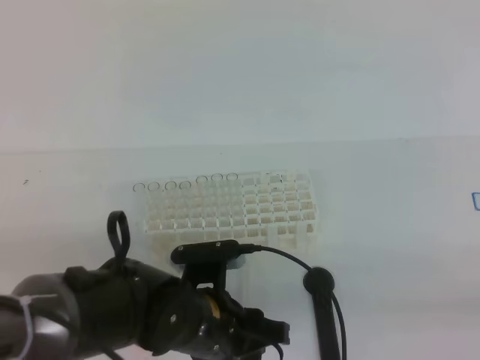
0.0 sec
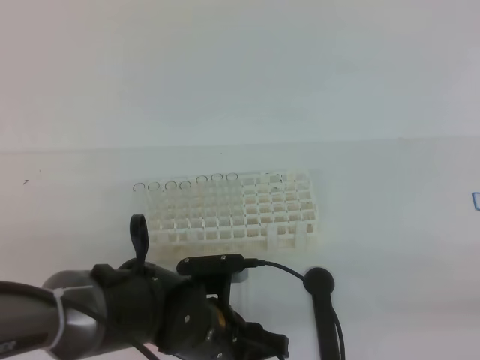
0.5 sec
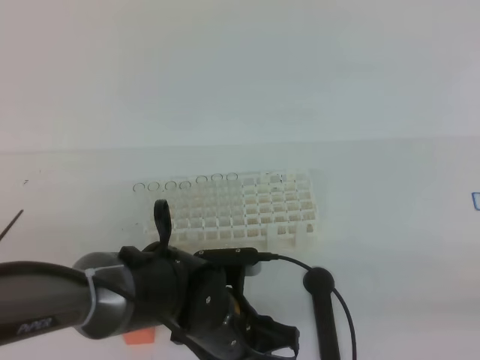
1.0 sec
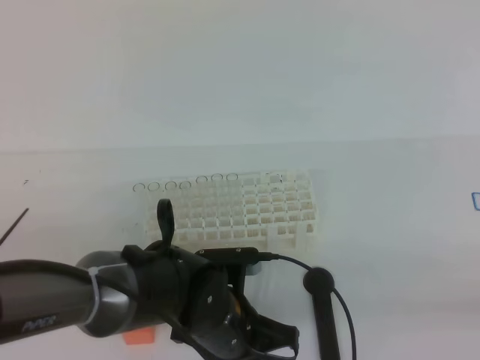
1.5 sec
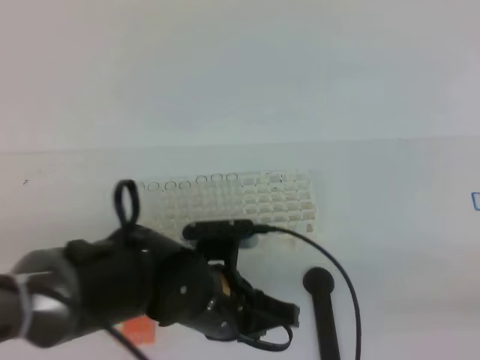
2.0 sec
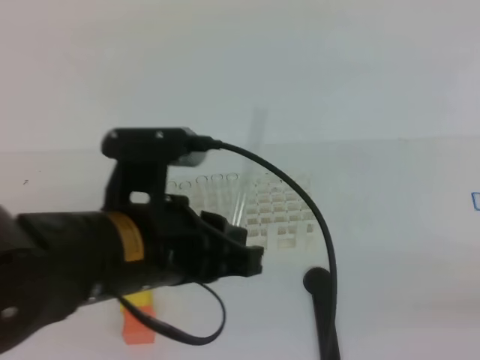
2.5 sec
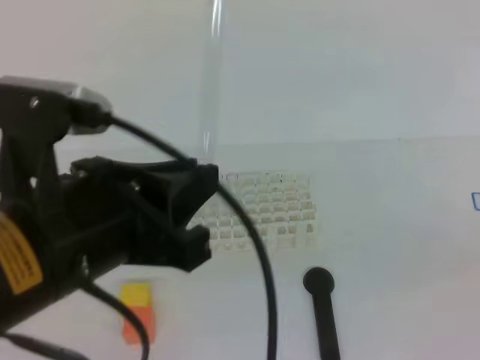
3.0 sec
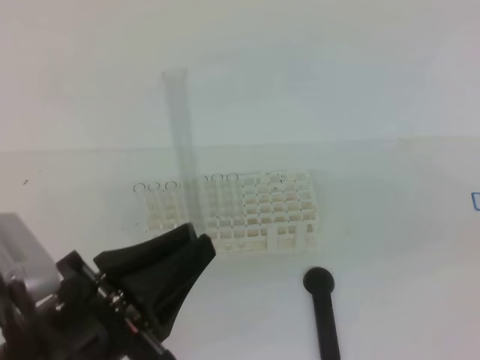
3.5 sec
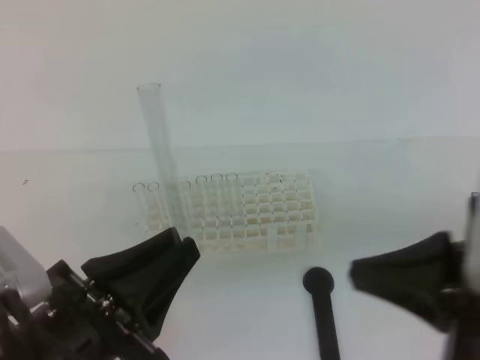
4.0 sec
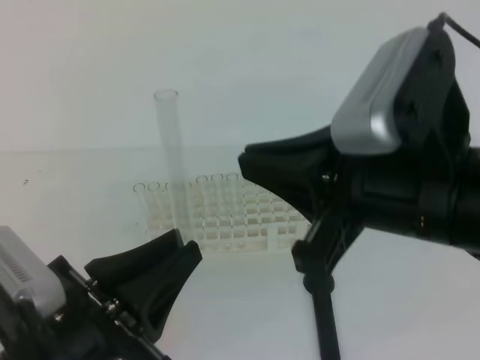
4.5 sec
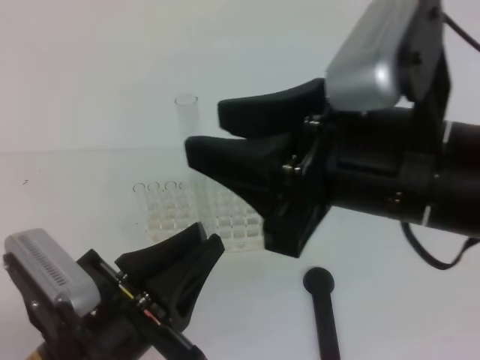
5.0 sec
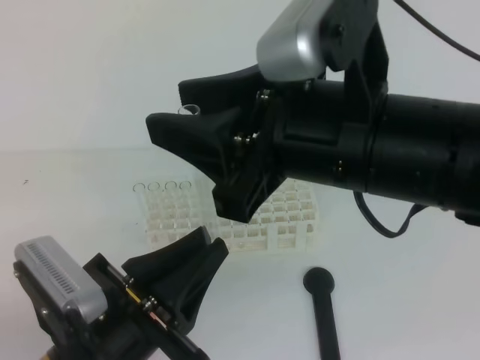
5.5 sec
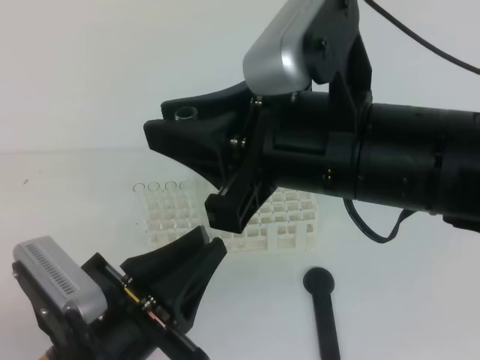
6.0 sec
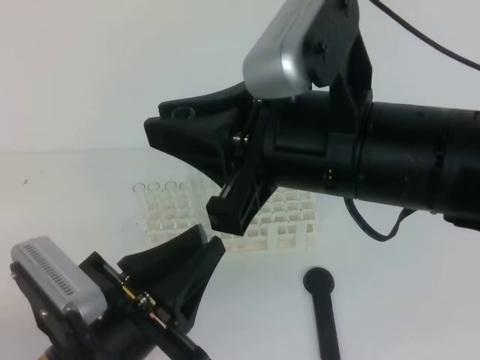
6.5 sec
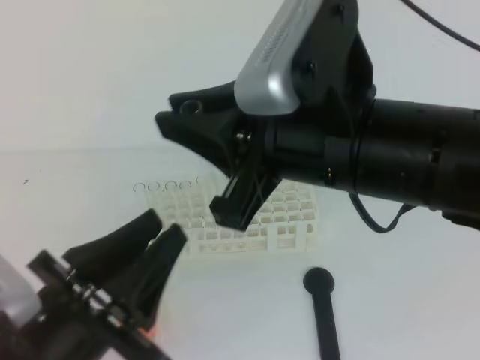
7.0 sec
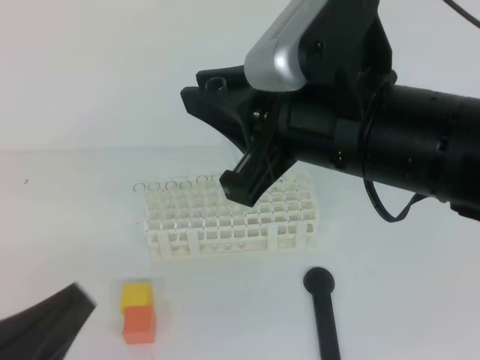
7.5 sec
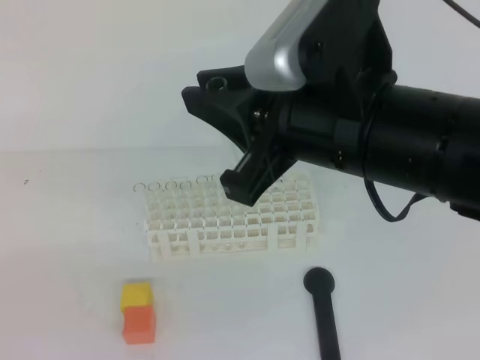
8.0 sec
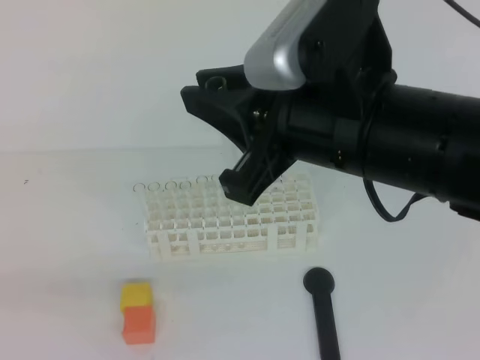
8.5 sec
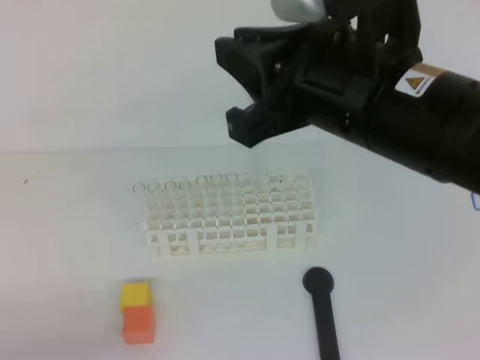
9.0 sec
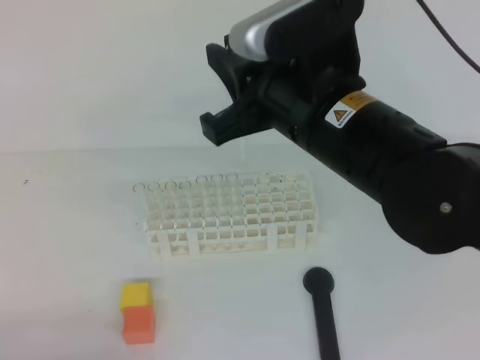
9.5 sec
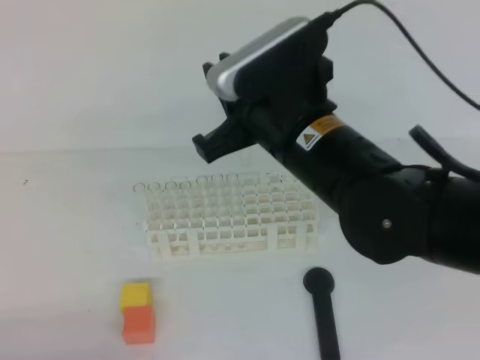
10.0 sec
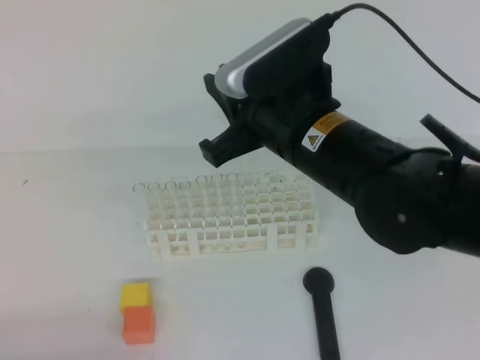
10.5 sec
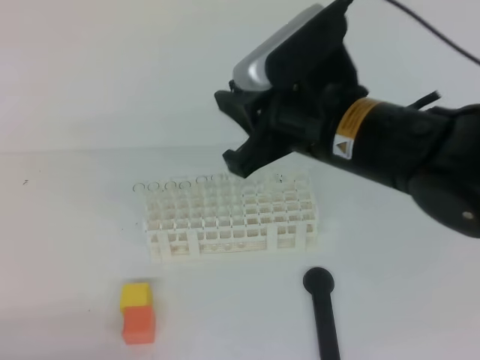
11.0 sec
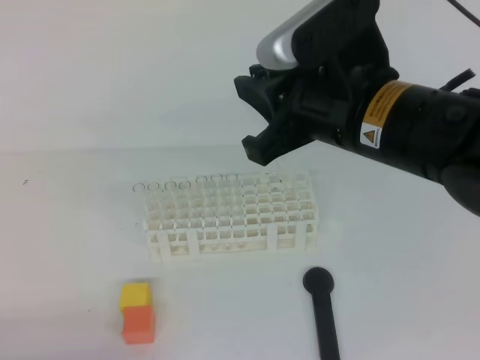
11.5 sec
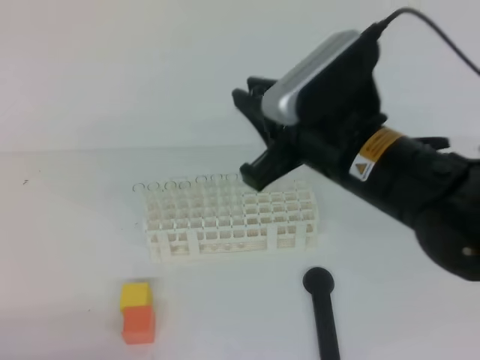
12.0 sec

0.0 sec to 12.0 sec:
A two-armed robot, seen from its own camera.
0.0 sec to 2.0 sec: The left gripper closes its fingers.
2.0 sec to 4.0 sec: The right gripper shifts about 20 cm to the left, forward and upward. The left gripper heads backward, to the left and upward, covering about 15 cm.
4.0 sec to 6.0 sec: The right gripper travels to the left by about 15 cm, and opens up.
6.0 sec to 8.0 sec: The left gripper goes about 15 cm to the left and backward, and opens, then closes once more.
8.0 sec to 10.0 sec: The left gripper is displaced downward by about 10 cm, while the right gripper travels forward and downward by some 10 cm.
10.0 sec to 12.0 sec: The grippers move only a little.

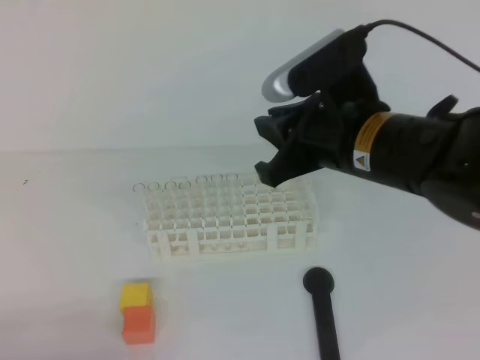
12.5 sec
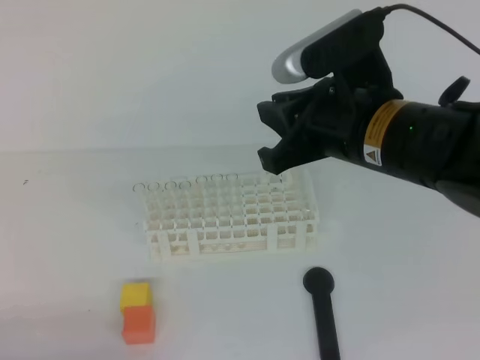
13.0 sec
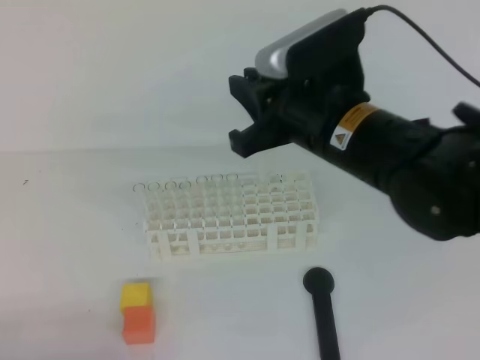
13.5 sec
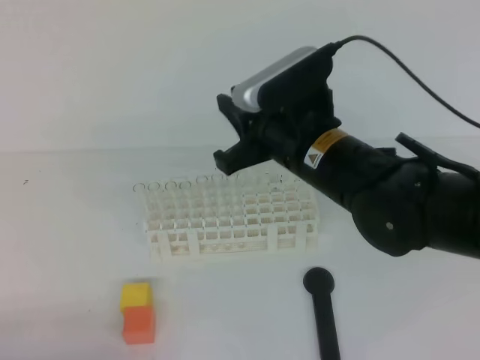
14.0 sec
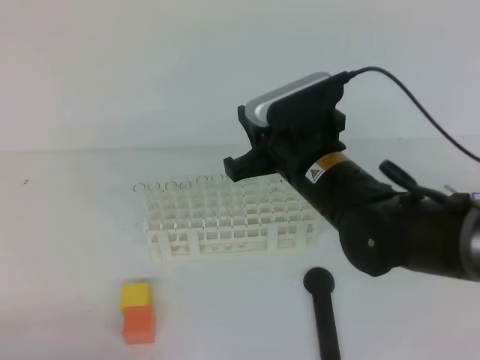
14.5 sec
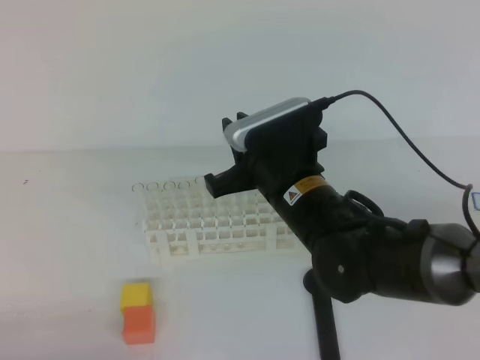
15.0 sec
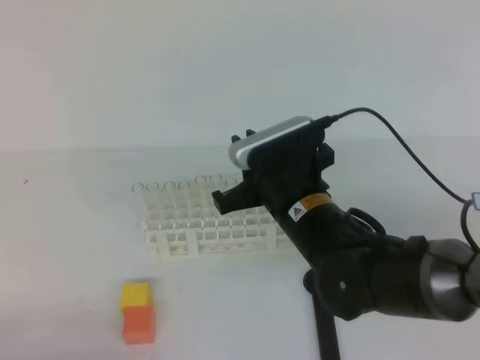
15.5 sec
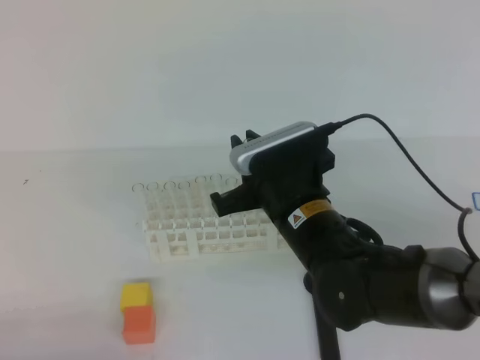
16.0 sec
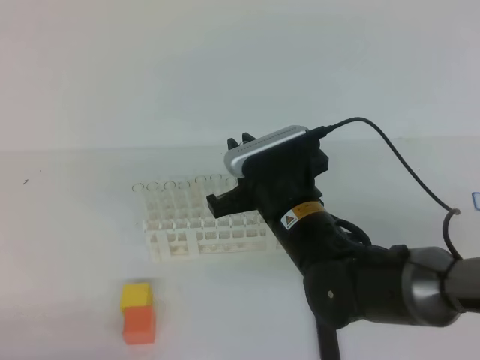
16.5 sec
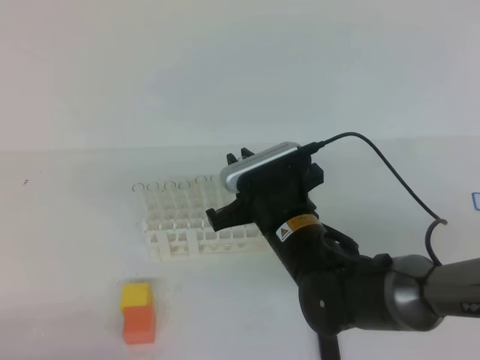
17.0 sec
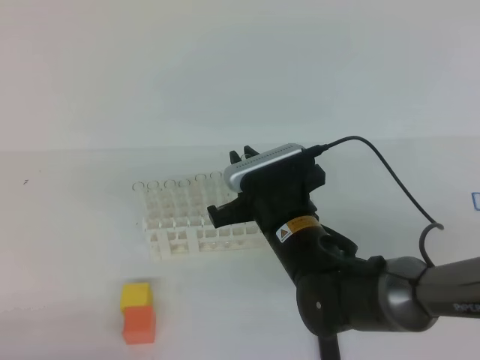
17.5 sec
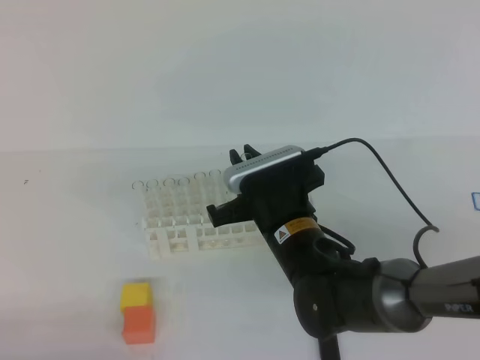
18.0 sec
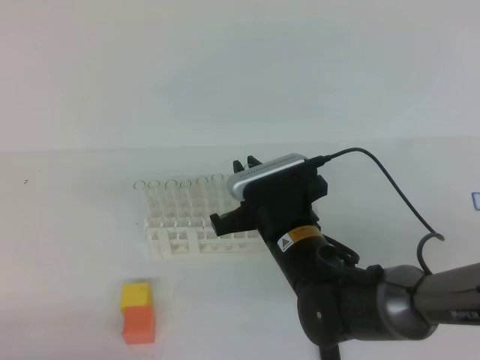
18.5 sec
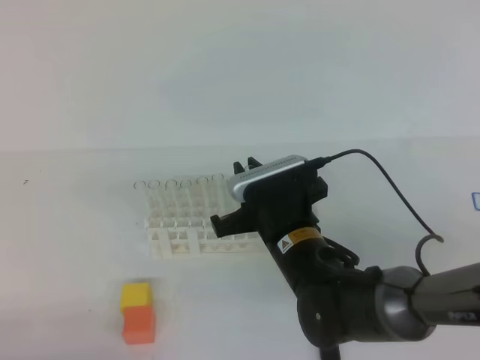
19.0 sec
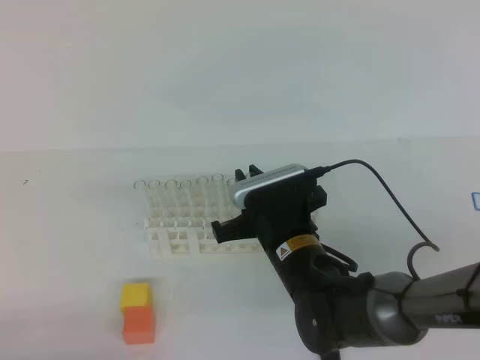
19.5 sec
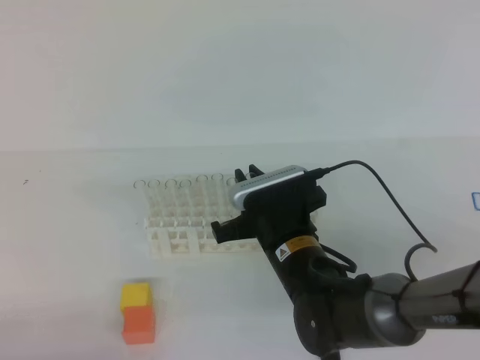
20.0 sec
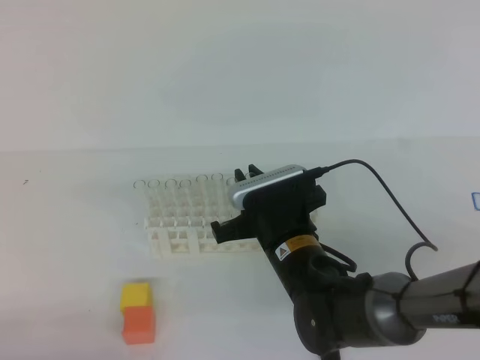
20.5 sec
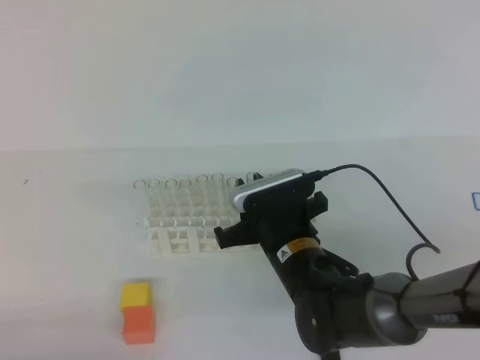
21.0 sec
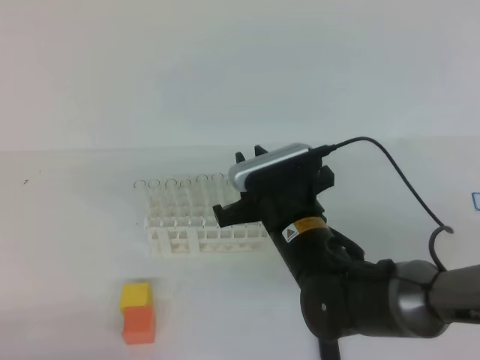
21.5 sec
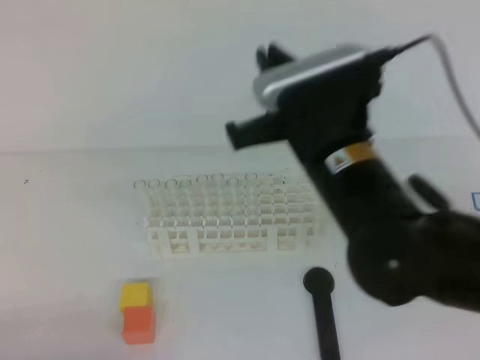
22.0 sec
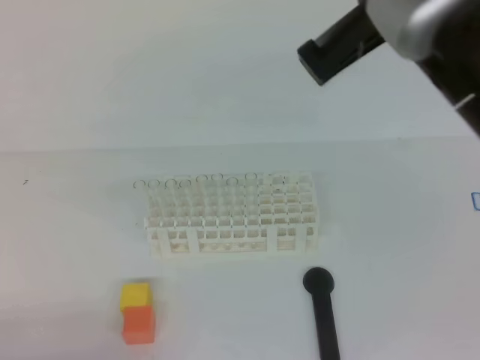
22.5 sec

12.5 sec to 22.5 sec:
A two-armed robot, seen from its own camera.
12.5 sec to 14.5 sec: The right gripper goes some 5 cm downward.
14.5 sec to 16.5 sec: The right gripper heads downward, covering about 5 cm.
16.5 sec to 20.5 sec: The grippers move only a little.
20.5 sec to 22.5 sec: The right gripper heads upward, covering about 30 cm, and closes its fingers.

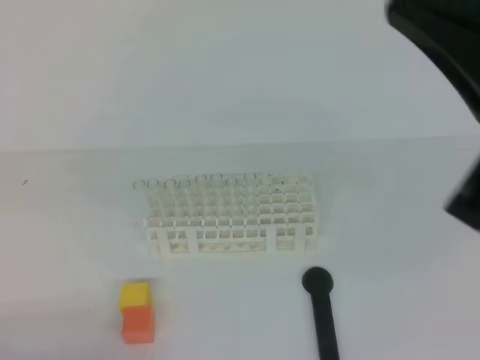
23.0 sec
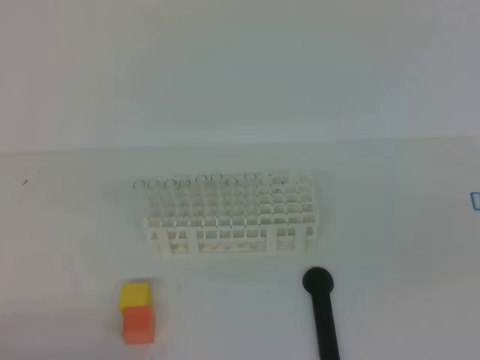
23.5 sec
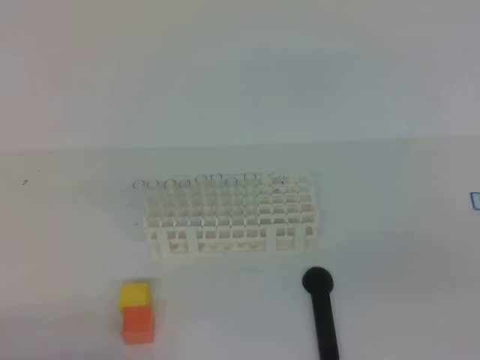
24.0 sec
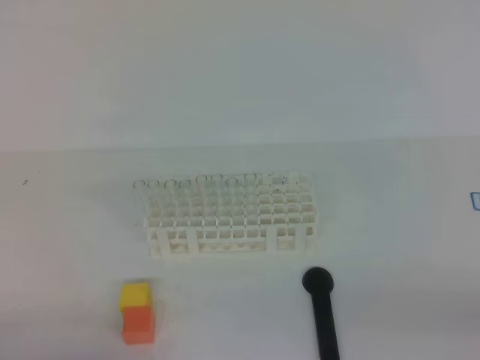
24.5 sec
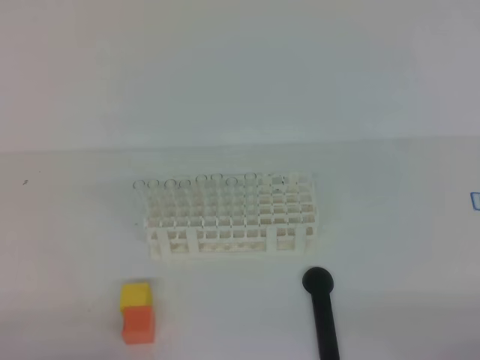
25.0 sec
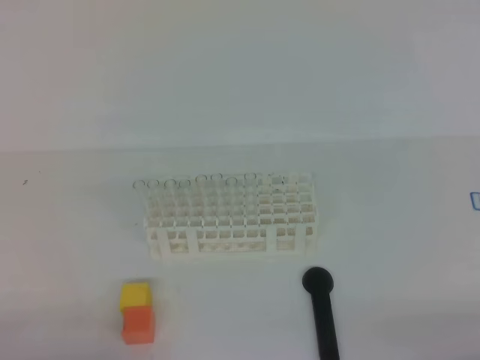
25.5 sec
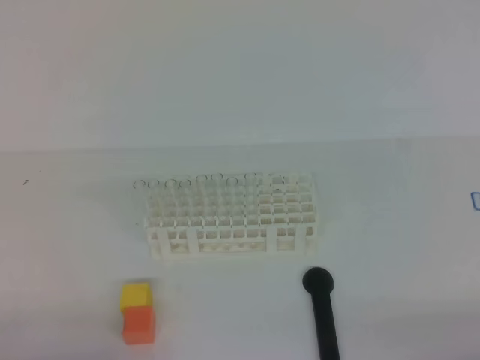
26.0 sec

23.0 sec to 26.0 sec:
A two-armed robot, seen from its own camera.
23.0 sec to 24.5 sec: The right gripper is displaced downward, to the right and backward by approximately 25 cm.
